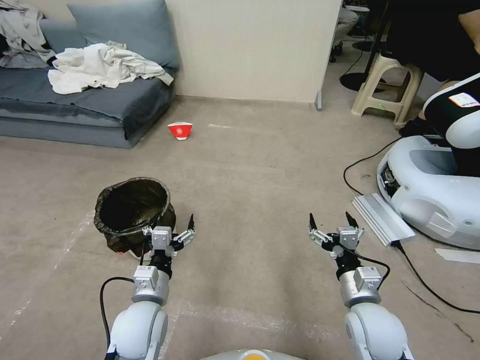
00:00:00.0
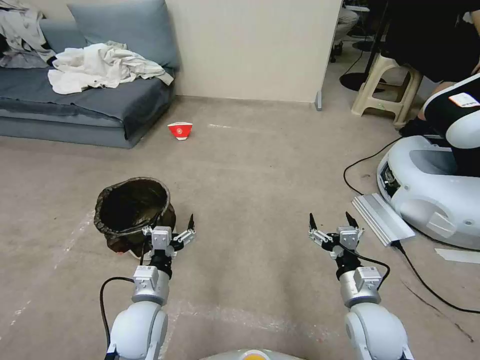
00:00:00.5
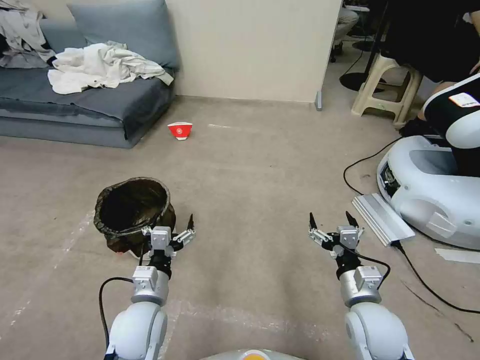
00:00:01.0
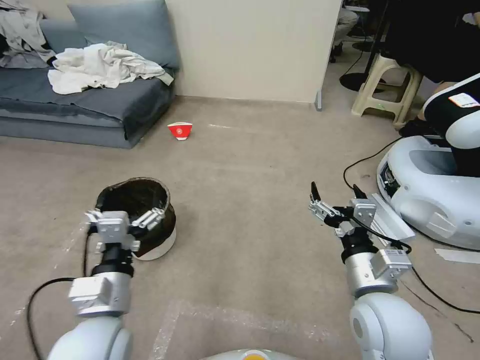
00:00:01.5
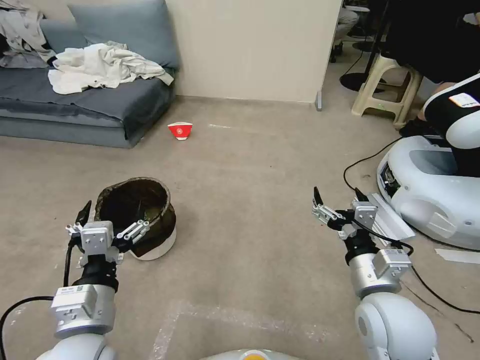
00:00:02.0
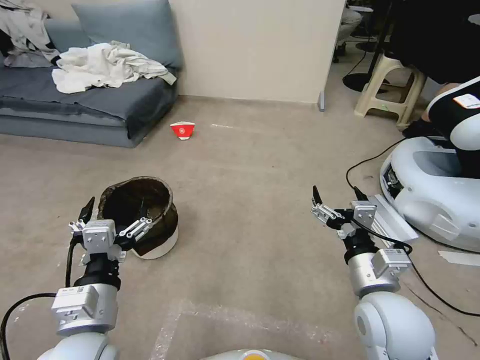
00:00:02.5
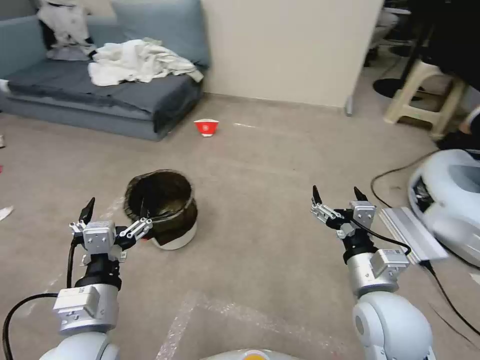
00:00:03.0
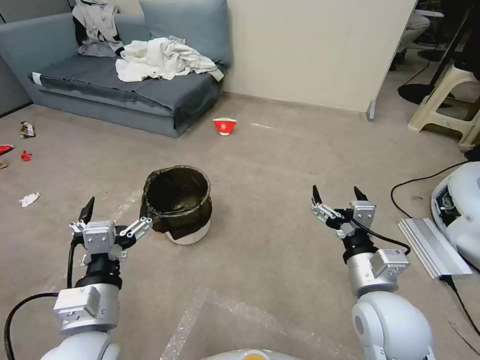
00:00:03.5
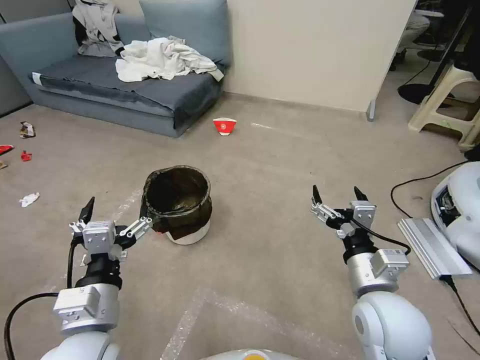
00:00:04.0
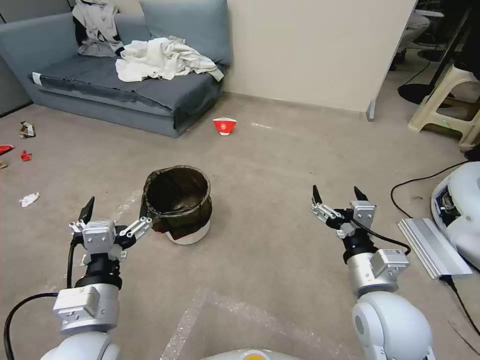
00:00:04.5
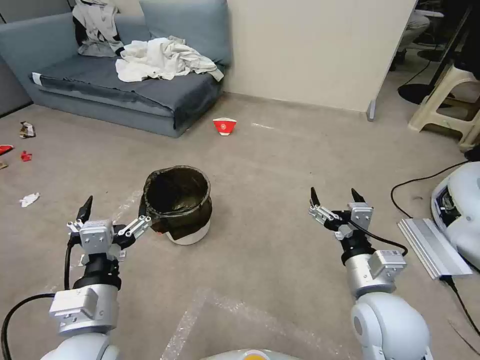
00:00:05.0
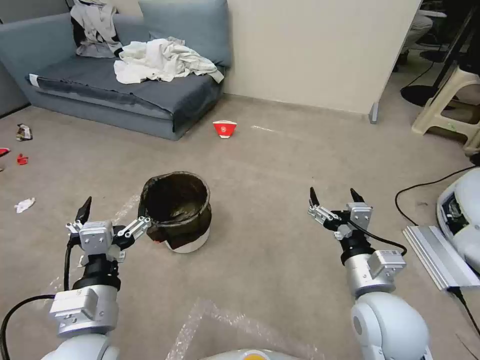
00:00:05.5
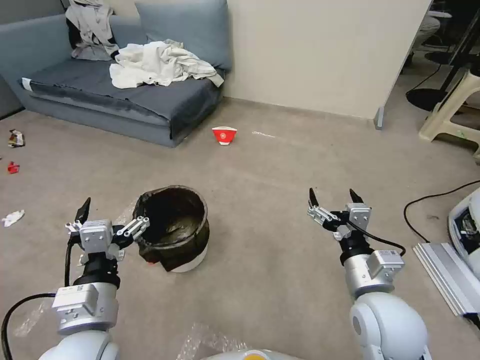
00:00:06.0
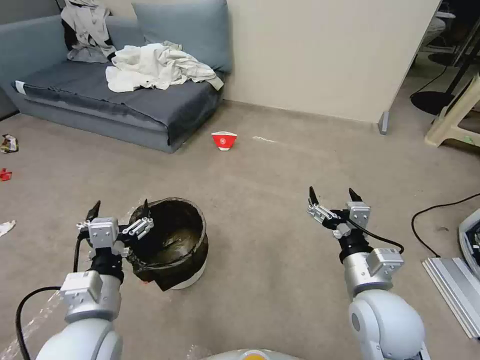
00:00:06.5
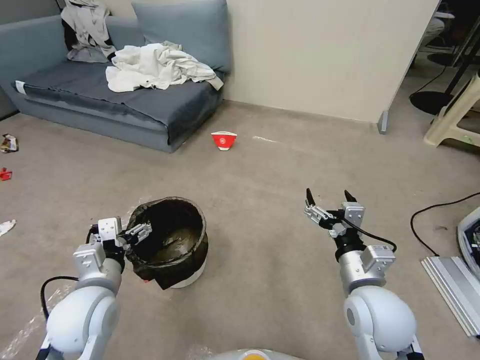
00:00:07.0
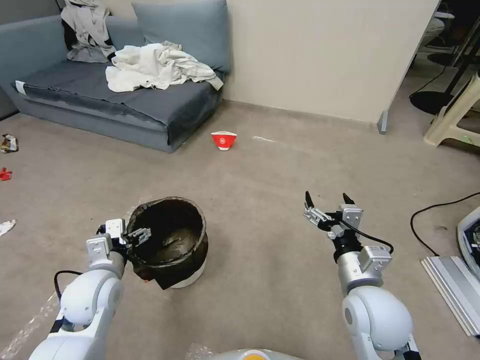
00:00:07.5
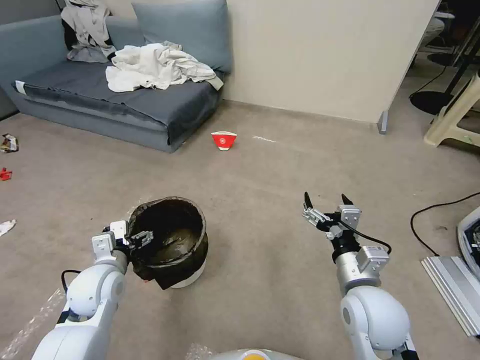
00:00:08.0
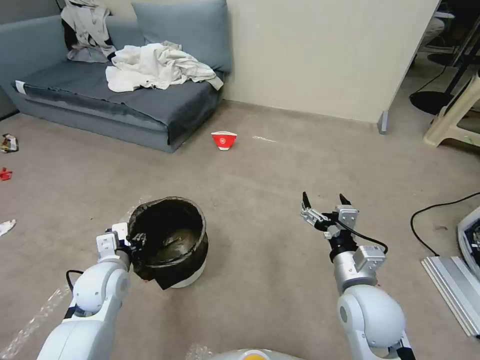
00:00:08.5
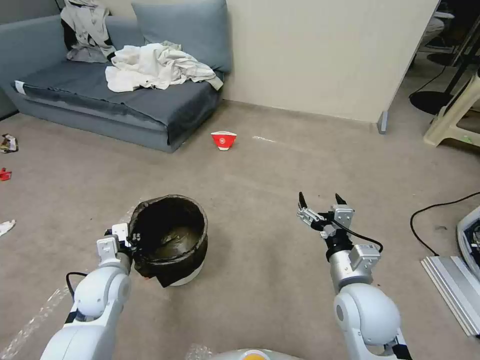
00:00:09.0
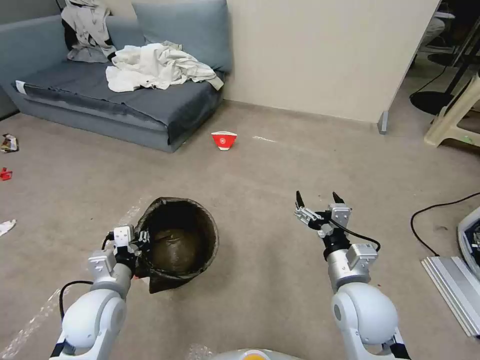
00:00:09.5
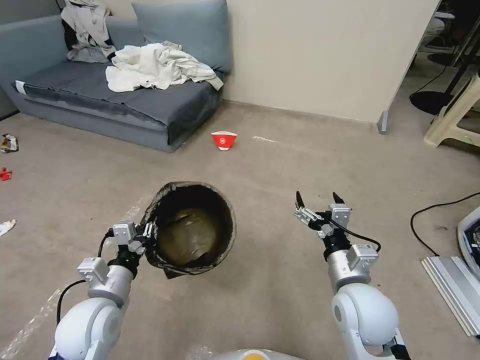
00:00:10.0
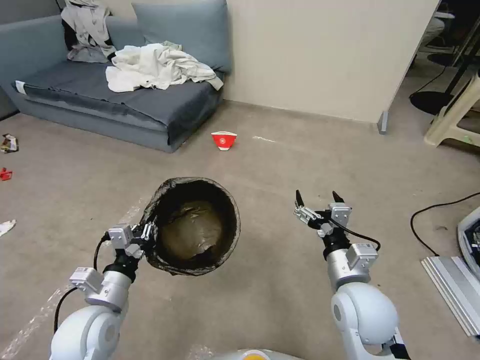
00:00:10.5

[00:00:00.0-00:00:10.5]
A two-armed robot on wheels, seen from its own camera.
Task of the whole recording: Pick up the trash can from the floor.
00:00:06.5 to 00:00:08.5: The left gripper is displaced forward, downward and to the left by about 15 cm, and closes up.
00:00:08.5 to 00:00:10.5: The left gripper moves backward, some 10 cm, and closes up.

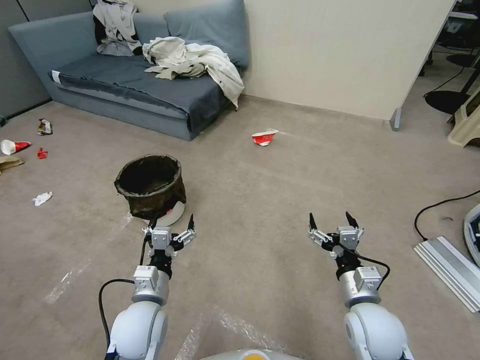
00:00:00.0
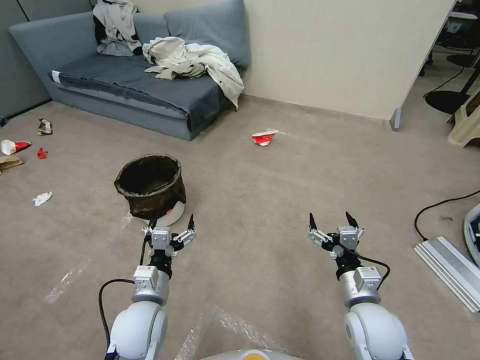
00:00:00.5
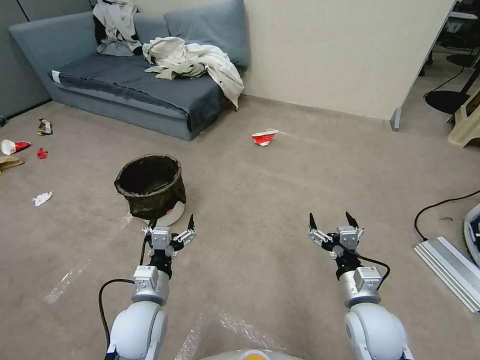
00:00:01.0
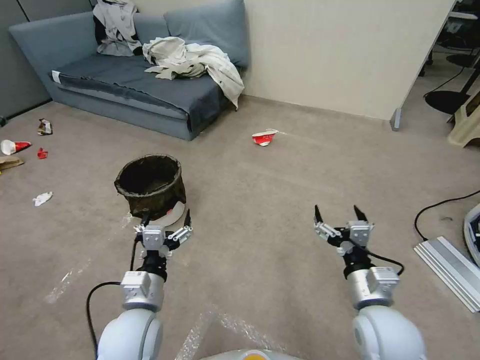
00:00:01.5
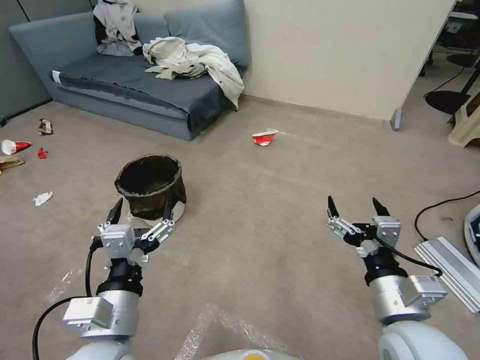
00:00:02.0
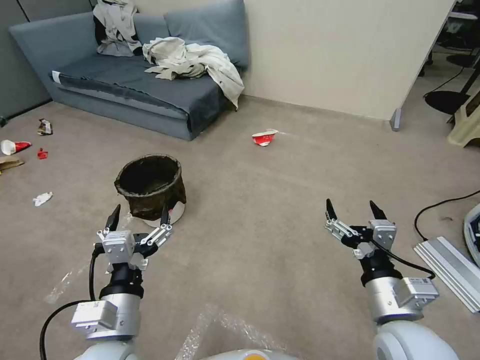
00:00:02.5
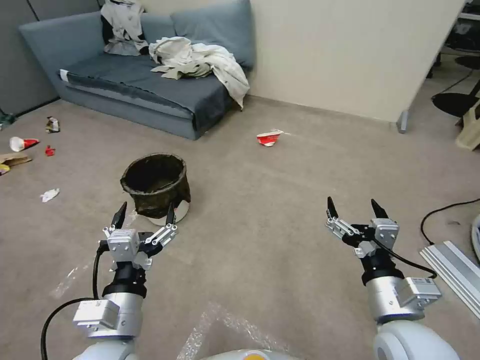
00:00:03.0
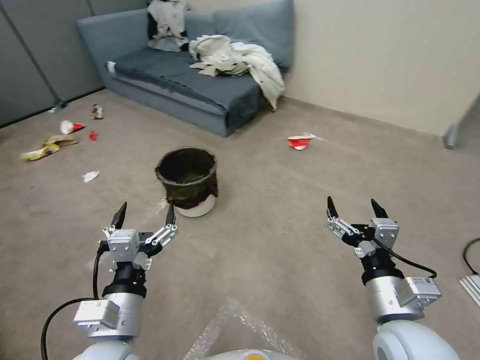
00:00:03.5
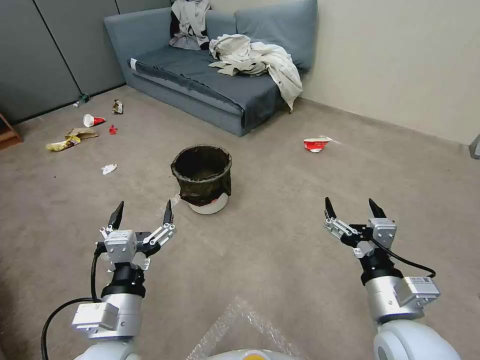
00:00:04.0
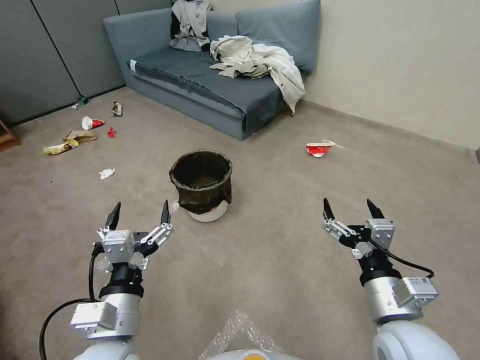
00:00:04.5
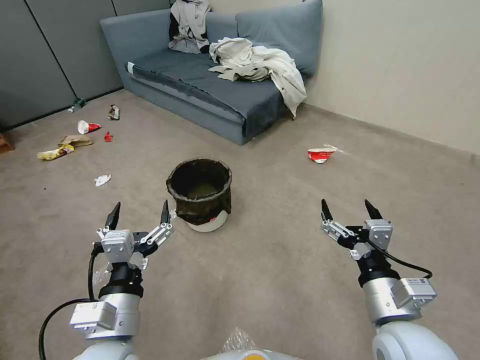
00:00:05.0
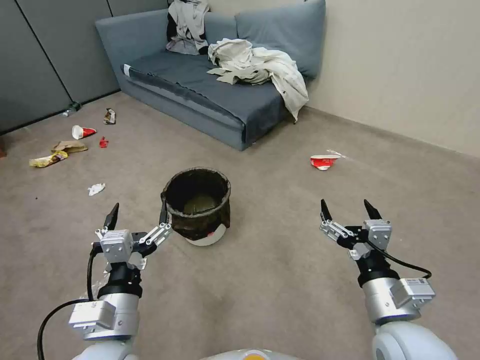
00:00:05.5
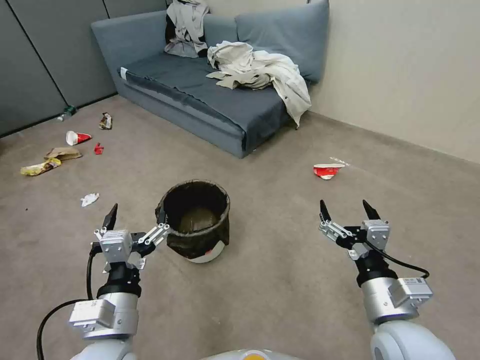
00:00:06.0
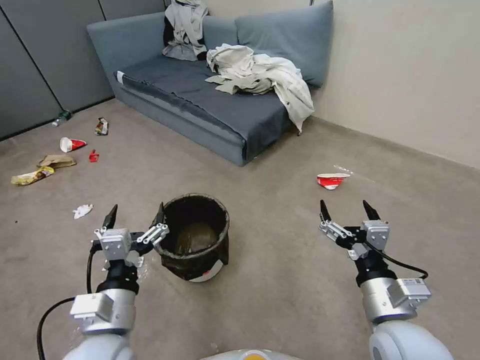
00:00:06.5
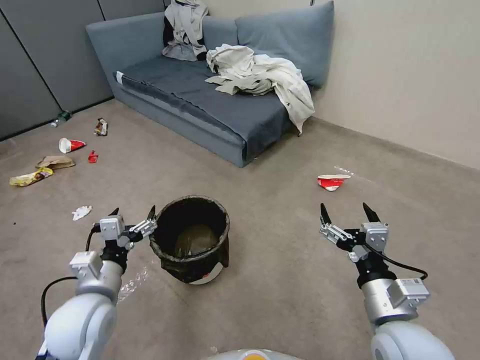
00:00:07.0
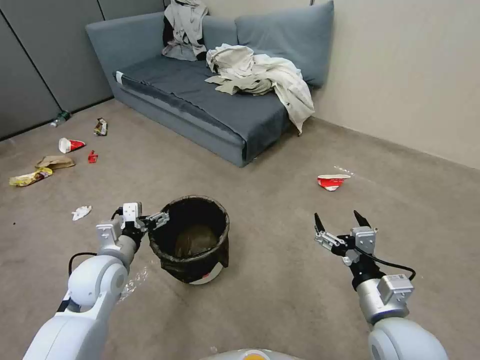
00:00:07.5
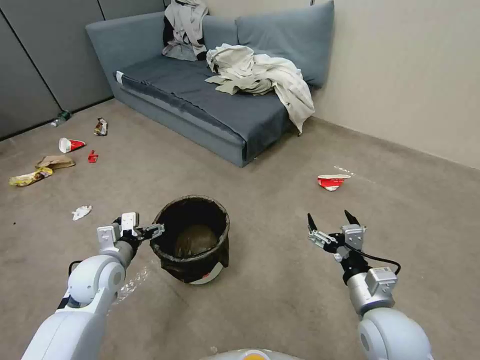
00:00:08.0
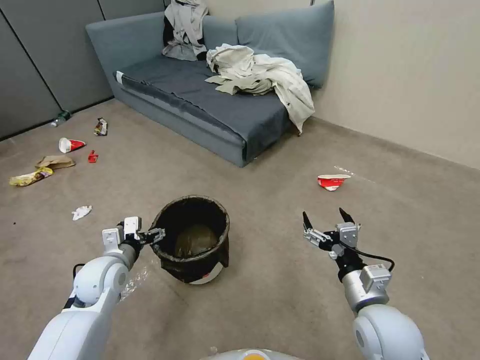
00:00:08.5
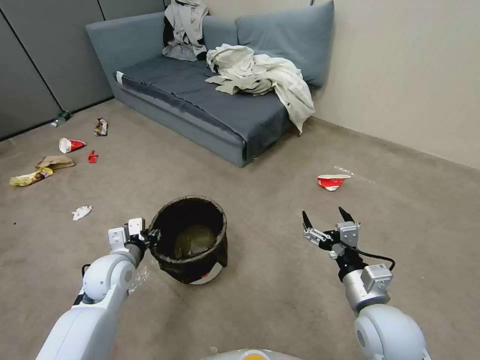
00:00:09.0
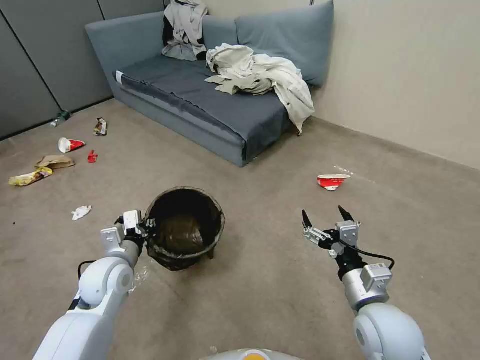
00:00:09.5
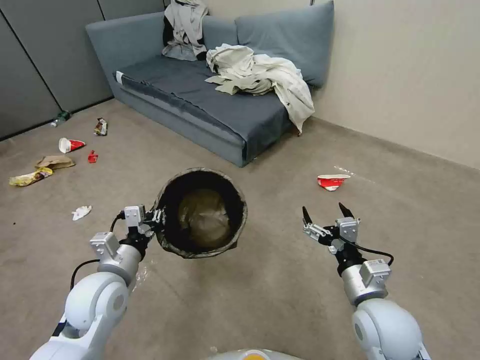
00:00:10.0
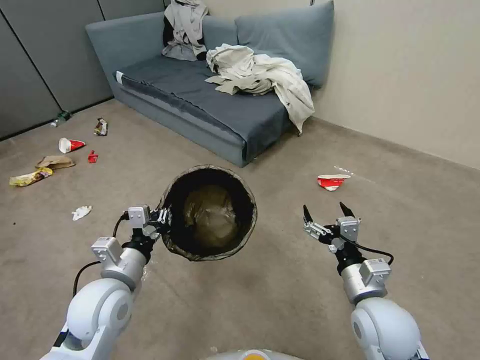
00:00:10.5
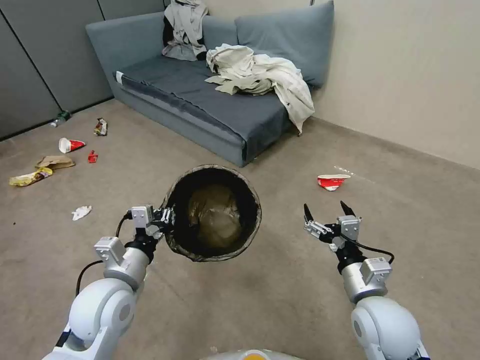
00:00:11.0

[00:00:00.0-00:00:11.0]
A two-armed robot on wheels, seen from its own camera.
Task of the whole recording: Pick up the trash can from the floor.
00:00:05.5 to 00:00:07.5: The left gripper travels forward and to the left by roughly 20 cm.
00:00:07.5 to 00:00:09.0: The left gripper closes up.
00:00:09.0 to 00:00:11.0: The left gripper is displaced backward, upward and to the right by about 10 cm, and closes.

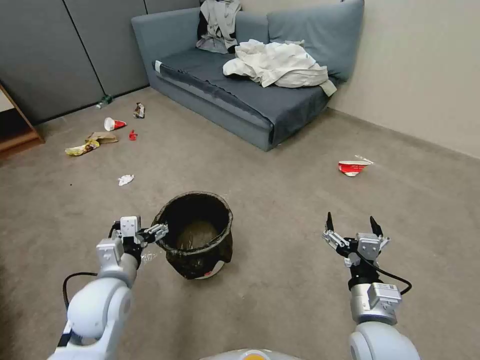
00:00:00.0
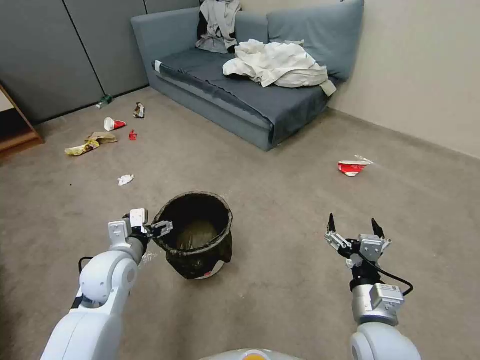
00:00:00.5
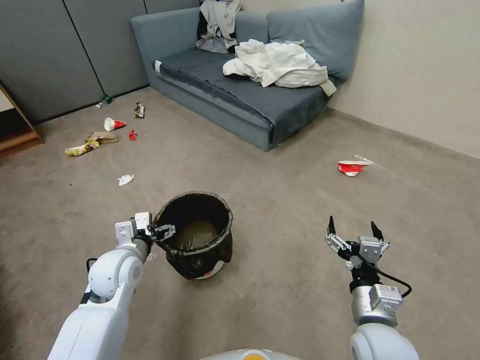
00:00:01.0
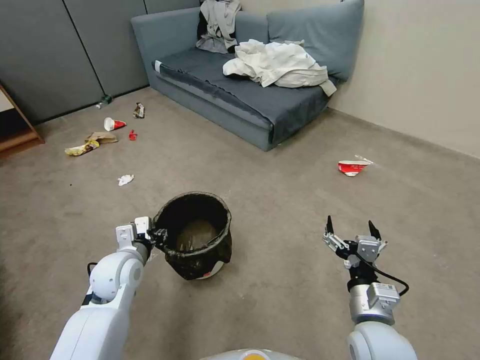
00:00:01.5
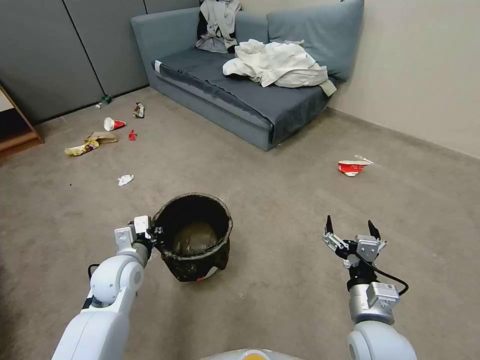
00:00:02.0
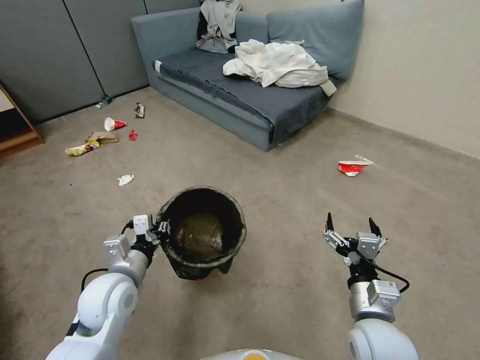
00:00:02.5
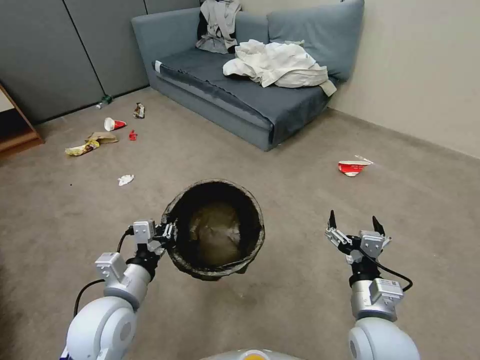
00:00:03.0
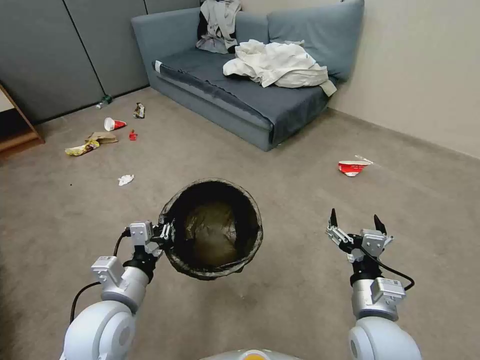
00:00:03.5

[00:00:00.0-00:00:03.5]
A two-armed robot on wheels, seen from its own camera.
Task of the whole recording: Pick up the trash can from the floor.
00:00:00.0 to 00:00:02.0: The left gripper moves forward, some 5 cm, and closes up.
00:00:02.0 to 00:00:03.5: The left gripper heads backward and upward, covering approximately 10 cm.

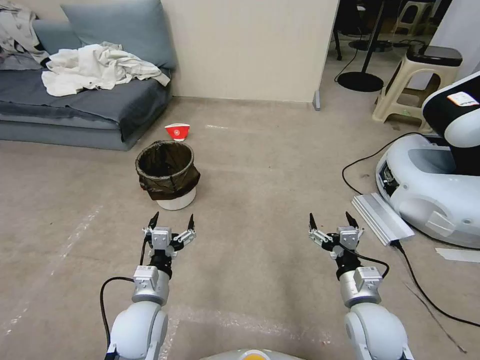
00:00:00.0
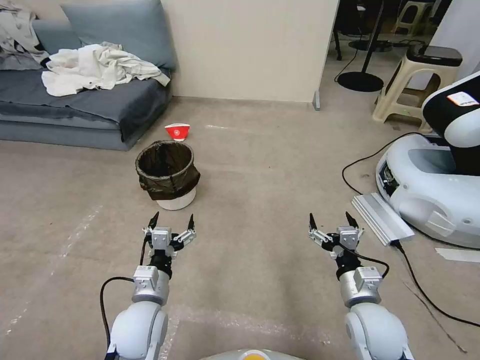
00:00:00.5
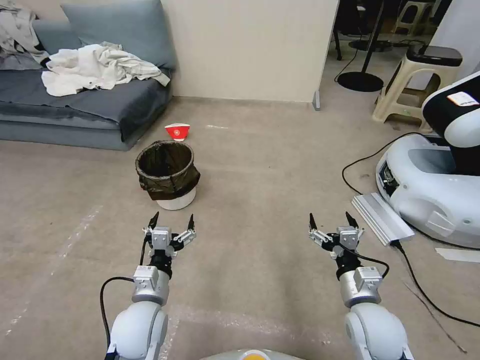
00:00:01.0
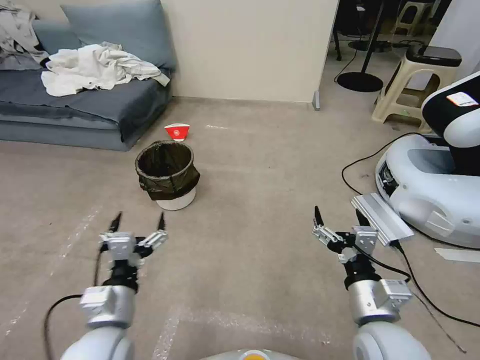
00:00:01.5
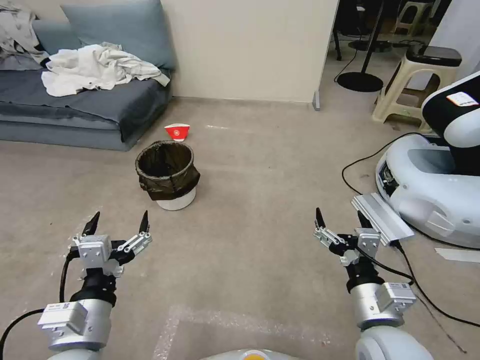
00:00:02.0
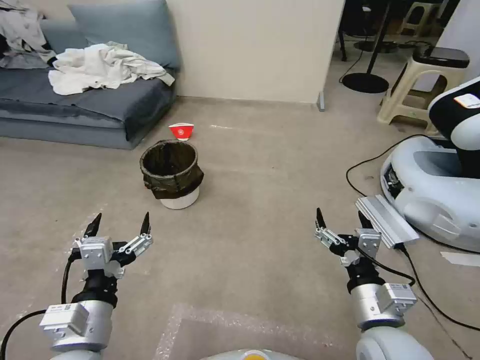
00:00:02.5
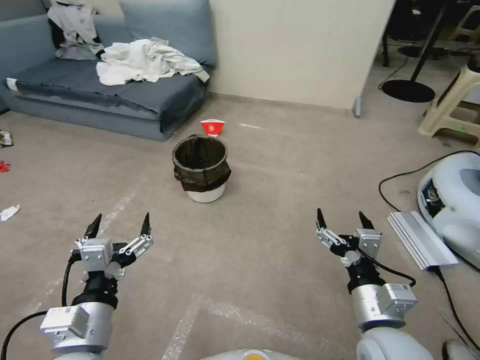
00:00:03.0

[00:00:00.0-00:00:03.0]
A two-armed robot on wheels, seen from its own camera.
Task of the whole recording: Pick up the trash can from the floor.
00:00:01.5 to 00:00:03.0: The left gripper moves roughly 5 cm.
